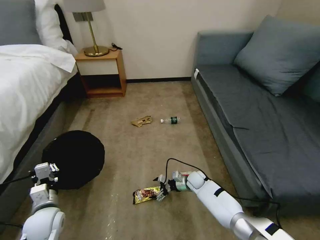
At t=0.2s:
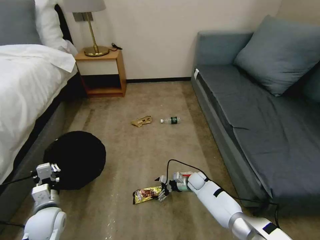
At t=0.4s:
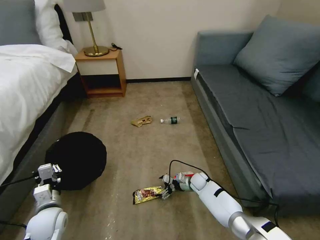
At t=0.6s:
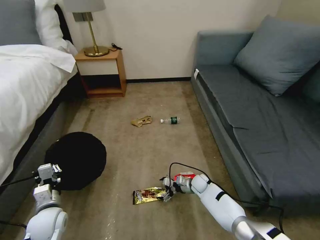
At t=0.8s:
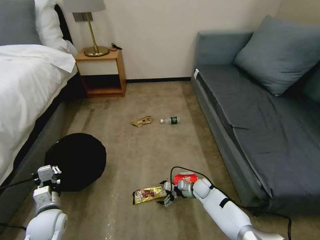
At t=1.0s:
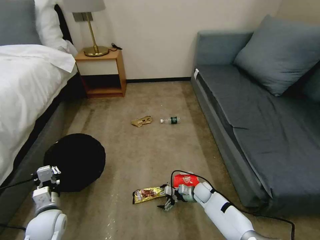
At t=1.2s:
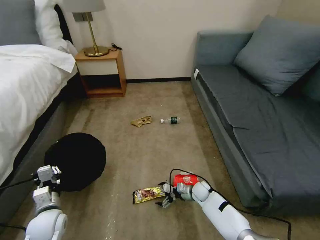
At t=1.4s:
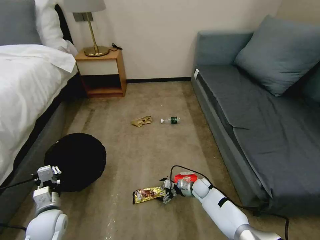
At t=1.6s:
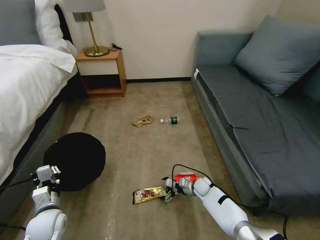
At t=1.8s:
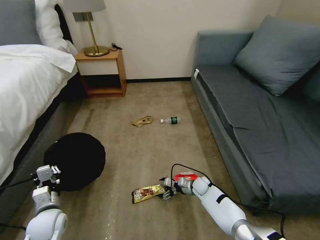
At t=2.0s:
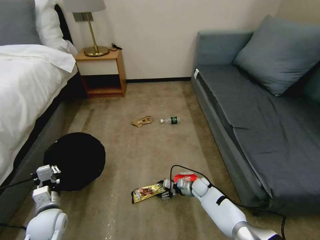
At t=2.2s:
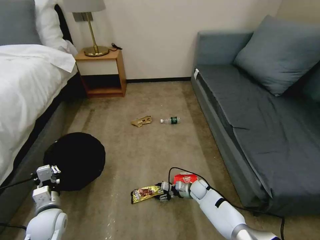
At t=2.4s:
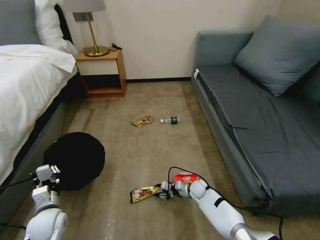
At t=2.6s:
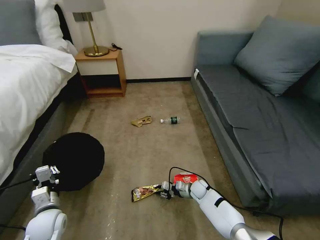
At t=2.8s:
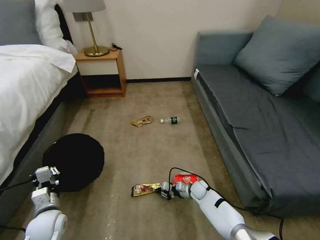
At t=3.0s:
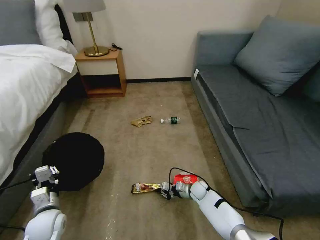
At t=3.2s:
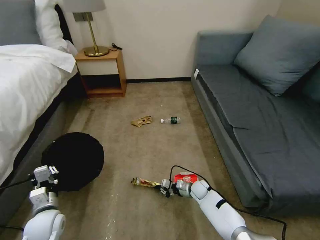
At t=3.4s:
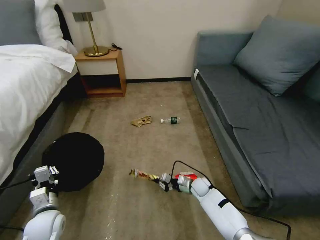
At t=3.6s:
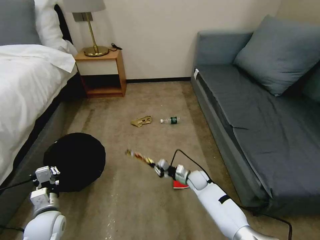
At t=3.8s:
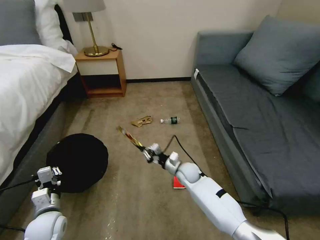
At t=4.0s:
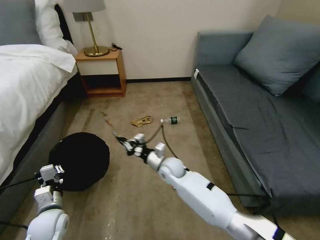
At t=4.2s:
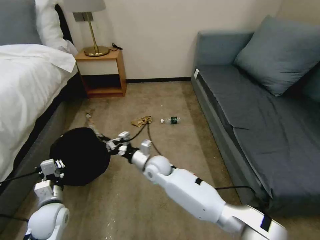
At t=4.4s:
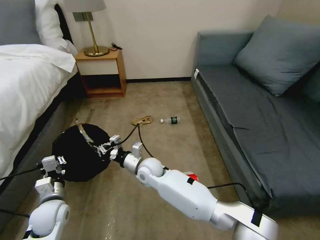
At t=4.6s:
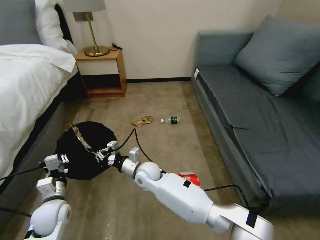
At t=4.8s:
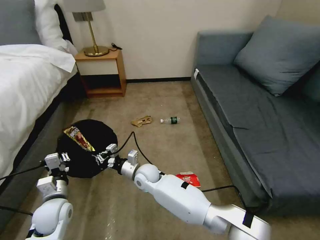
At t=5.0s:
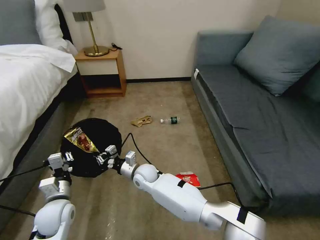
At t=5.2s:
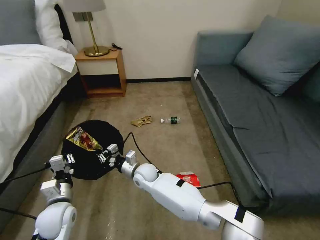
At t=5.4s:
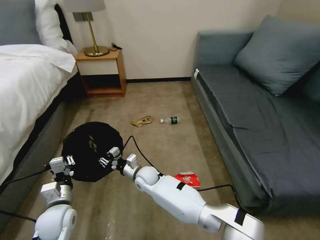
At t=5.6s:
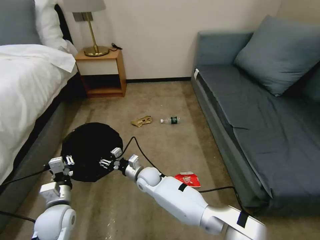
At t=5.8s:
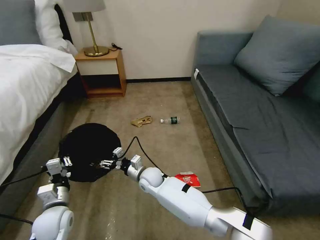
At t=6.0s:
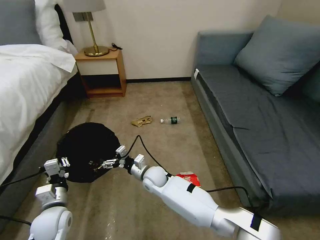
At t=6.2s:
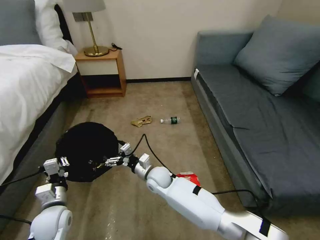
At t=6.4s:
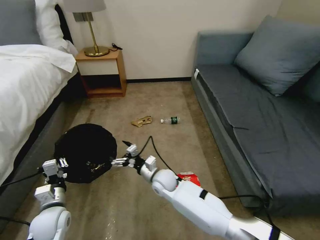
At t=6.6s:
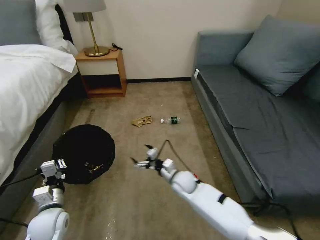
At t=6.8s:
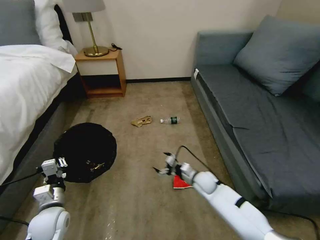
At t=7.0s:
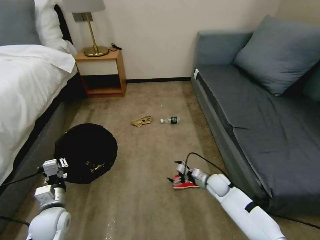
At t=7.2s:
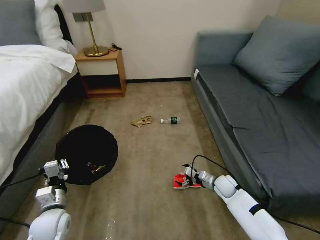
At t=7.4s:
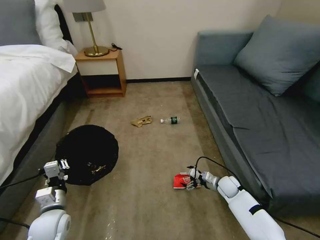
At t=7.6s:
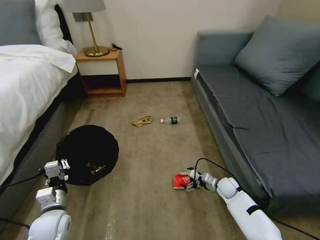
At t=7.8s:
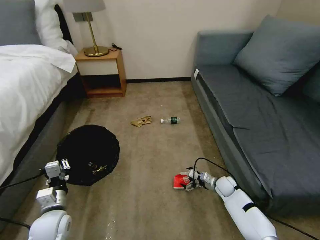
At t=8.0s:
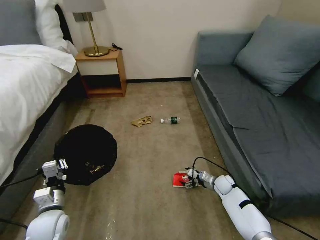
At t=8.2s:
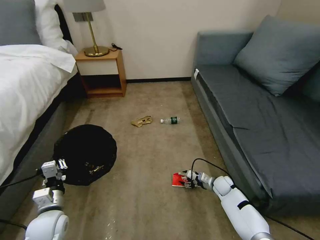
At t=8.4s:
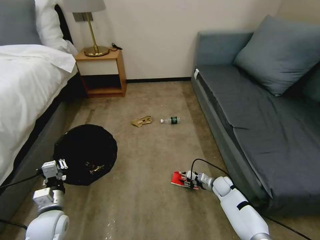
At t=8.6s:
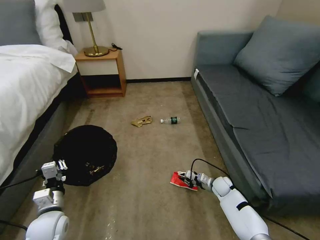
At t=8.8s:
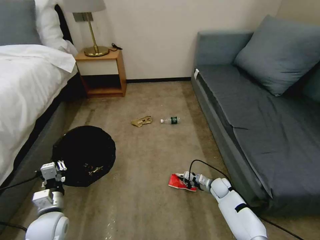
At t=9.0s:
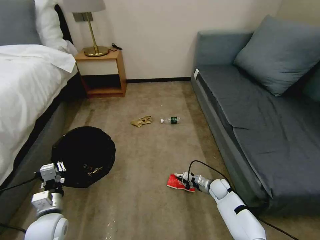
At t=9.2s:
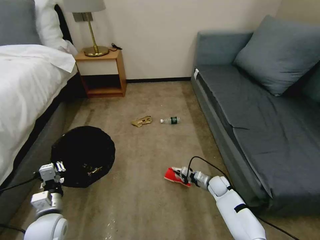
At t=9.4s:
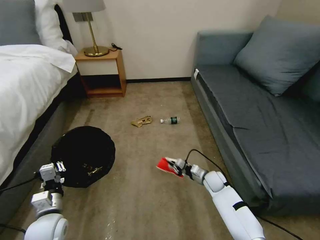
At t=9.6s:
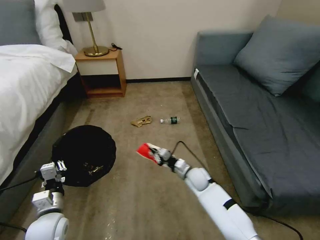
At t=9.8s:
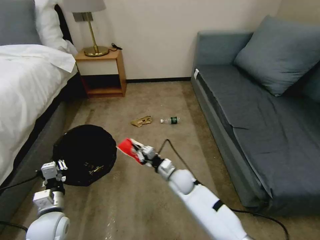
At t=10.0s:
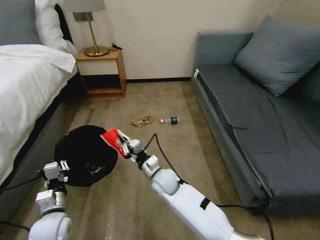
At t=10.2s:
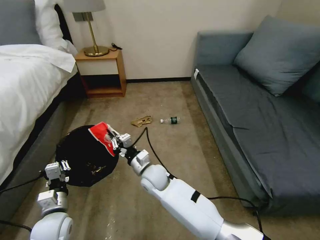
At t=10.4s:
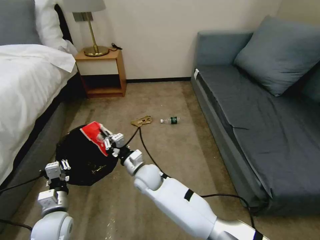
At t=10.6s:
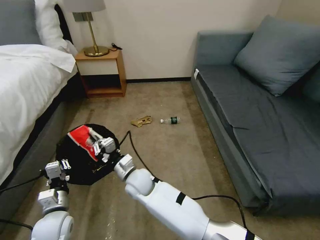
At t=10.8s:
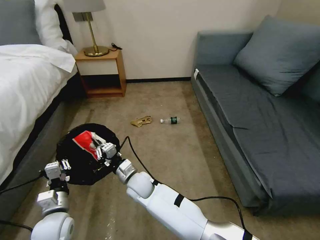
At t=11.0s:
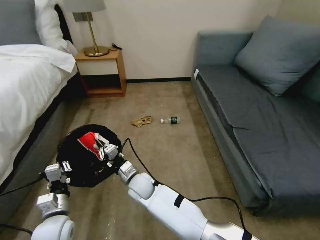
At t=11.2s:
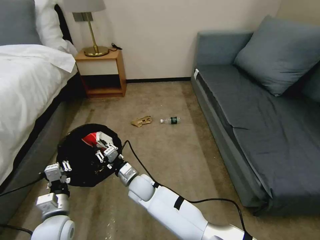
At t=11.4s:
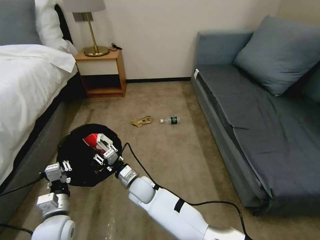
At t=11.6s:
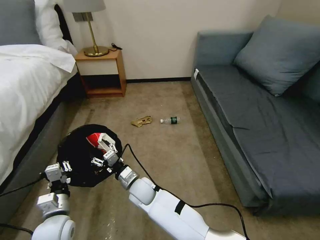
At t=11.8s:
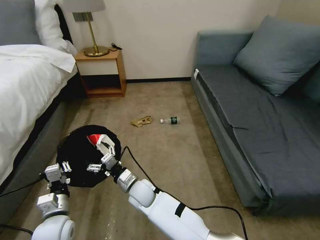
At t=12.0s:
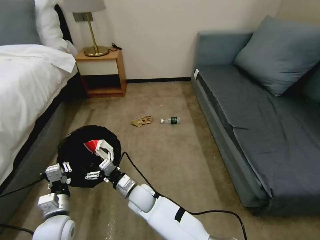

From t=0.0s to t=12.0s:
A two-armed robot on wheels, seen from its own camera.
Task of the whole recording: Pick up the trash bin, then pick up the garbage on the floor and place it into the trash bin.
From t=0.0s to t=1.6s: The grippers stay close to where they were, moving slightly.
From t=1.6s to t=3.0s: The right gripper closes.
From t=3.0s to t=4.4s: The right gripper shifts roughly 30 cm to the left and upward.
From t=4.4s to t=6.0s: The right gripper heads downward, covering some 5 cm, and opens up.
From t=6.0s to t=7.6s: The right gripper travels to the right by approximately 35 cm.
From t=7.6s to t=9.0s: The right gripper closes up.
From t=9.0s to t=10.4s: The right gripper travels to the left and upward by approximately 40 cm.
From t=10.4s to t=12.0s: The right gripper heads downward and backward, covering some 10 cm, and opens its fingers.

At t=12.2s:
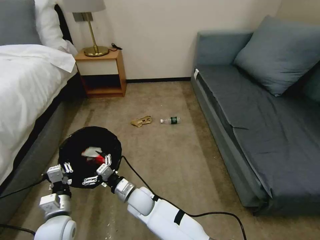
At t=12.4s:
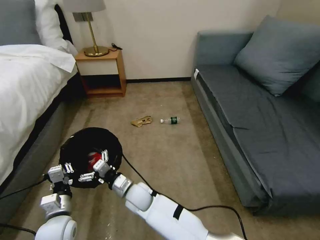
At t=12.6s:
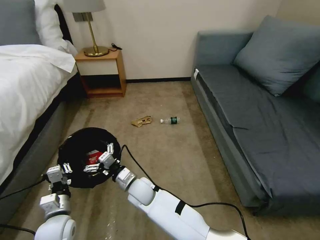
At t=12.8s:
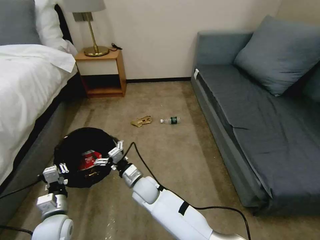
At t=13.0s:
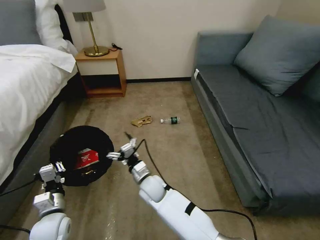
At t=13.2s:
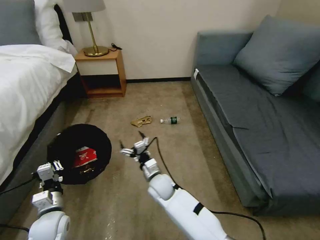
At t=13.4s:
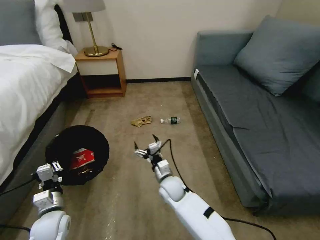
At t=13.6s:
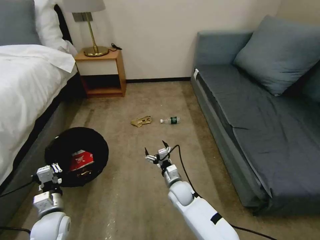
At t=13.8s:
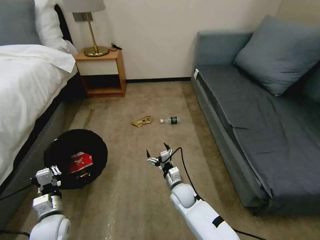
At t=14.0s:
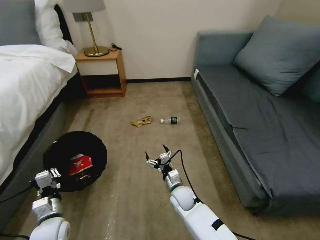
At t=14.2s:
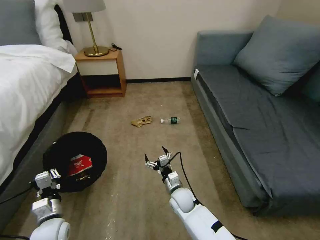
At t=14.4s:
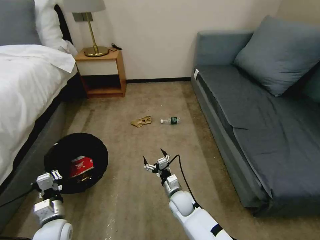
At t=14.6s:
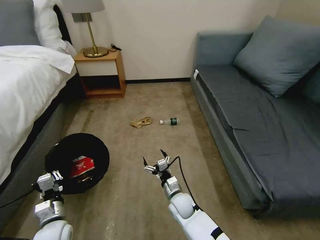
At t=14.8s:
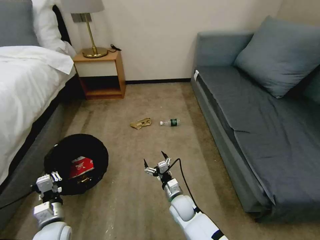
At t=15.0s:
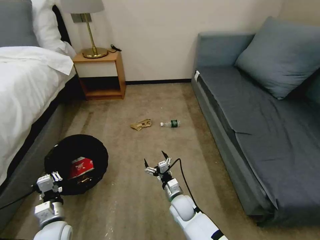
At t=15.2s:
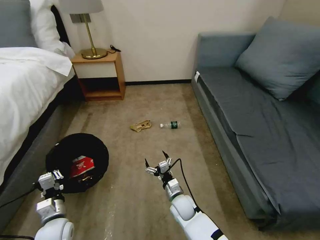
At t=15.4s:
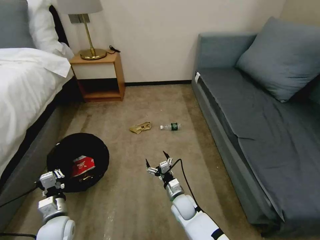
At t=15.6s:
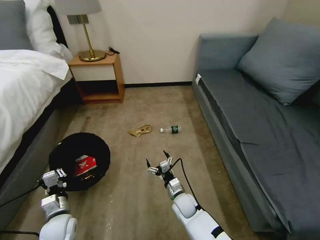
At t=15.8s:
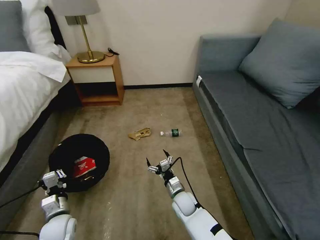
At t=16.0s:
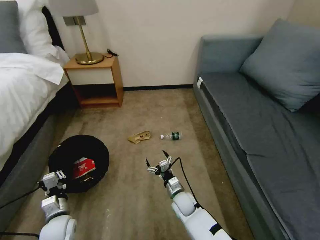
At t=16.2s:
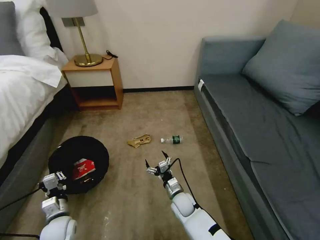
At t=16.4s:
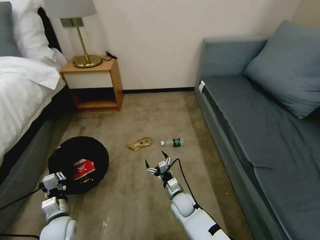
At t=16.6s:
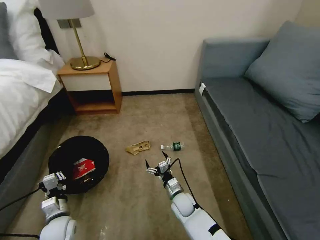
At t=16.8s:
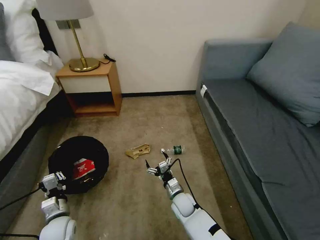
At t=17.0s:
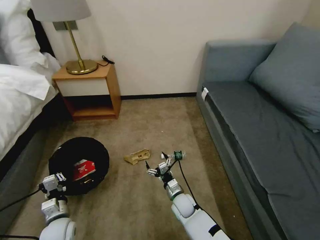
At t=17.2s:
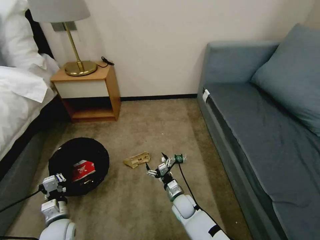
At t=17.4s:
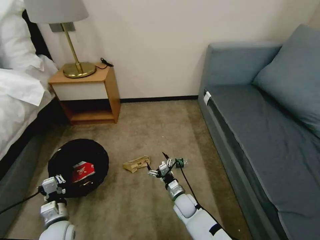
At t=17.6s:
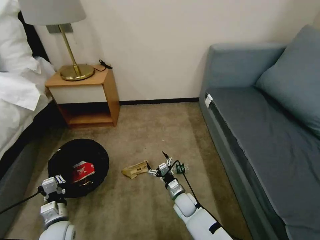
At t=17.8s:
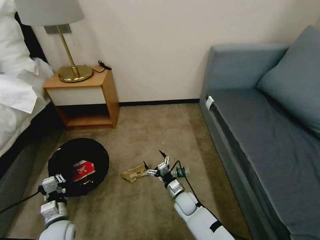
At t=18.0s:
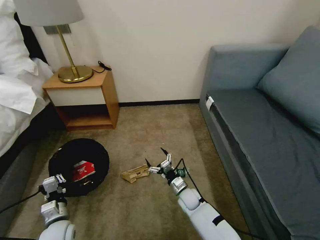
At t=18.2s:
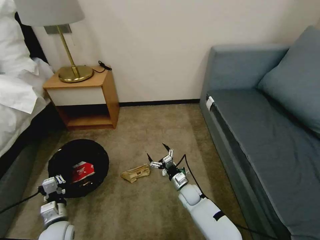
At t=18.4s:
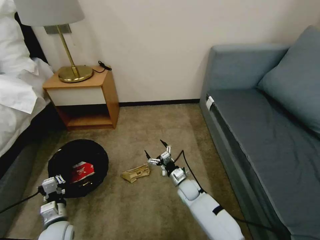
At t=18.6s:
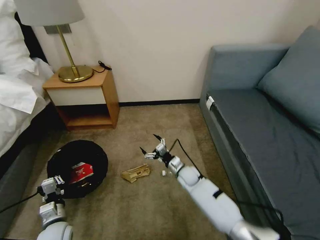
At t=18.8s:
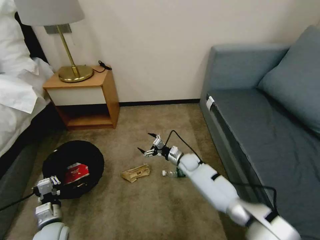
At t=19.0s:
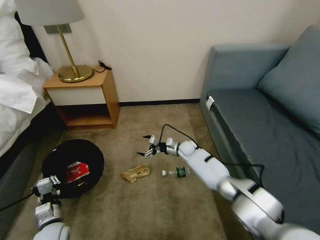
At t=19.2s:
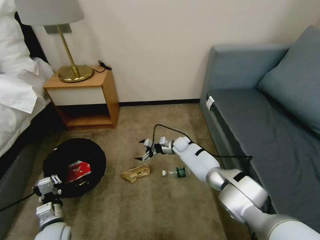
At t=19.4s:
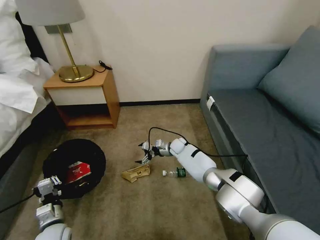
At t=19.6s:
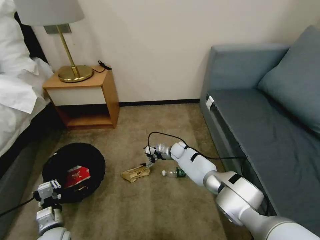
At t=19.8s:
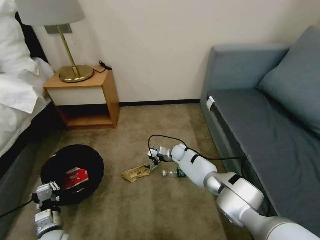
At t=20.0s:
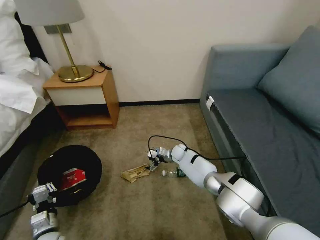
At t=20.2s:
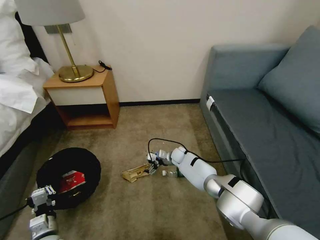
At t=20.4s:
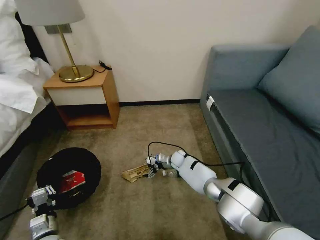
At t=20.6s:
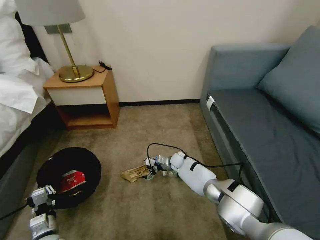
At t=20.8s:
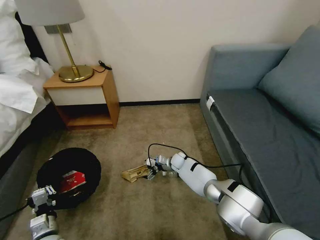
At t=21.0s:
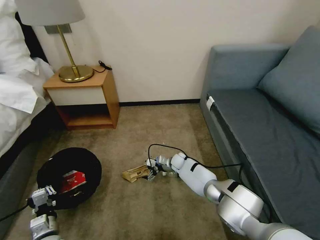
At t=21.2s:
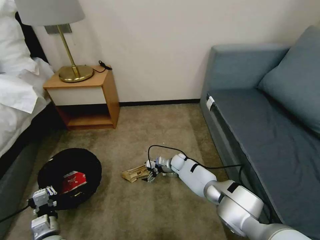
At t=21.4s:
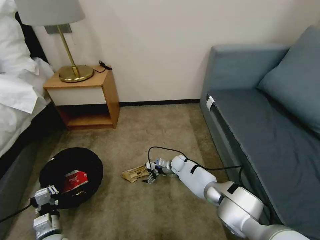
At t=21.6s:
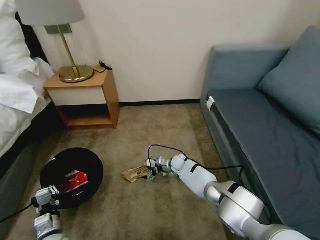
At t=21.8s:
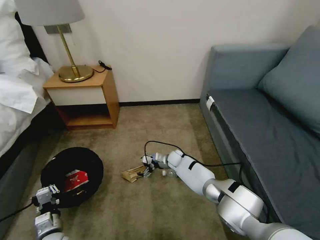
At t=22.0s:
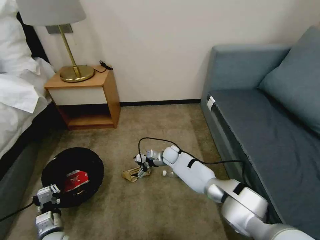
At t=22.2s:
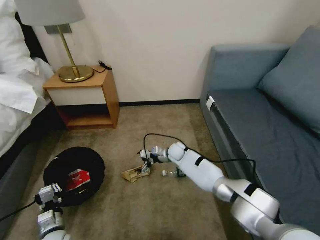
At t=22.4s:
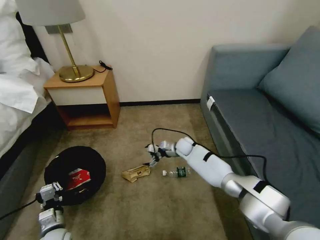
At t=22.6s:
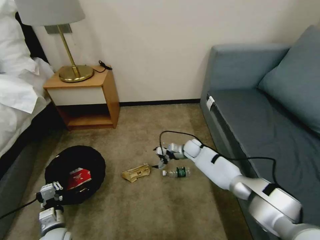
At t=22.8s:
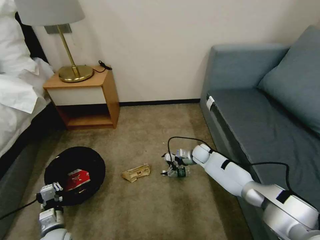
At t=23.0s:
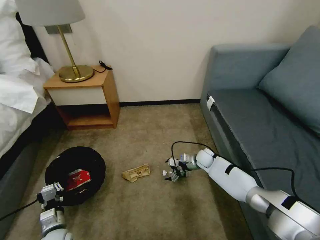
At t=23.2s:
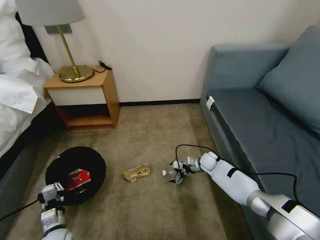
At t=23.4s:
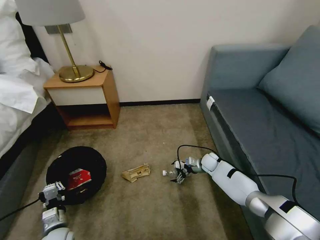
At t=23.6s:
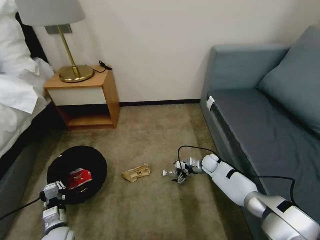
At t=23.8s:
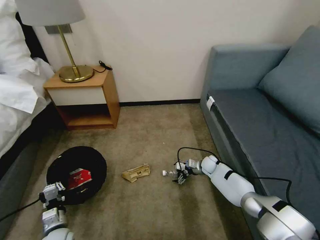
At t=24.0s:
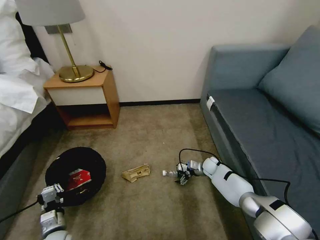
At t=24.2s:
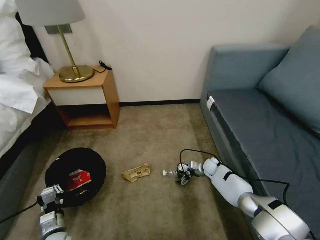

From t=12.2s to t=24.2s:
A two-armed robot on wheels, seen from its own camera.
Task of the whole recording: Pick up the trash bin, then pick up the garbage on the floor and place it into the trash bin.
From t=12.2s to t=13.8s: The right gripper travels to the right by some 15 cm.
From t=13.8s to t=15.2s: There are only small adjustments of the grippers.
From t=16.6s to t=18.2s: The right gripper ends up roughly 5 cm from where it was.
From t=18.2s to t=19.8s: The right gripper travels forward by about 20 cm.
From t=19.8s to t=21.2s: The right gripper changes place by about 5 cm.
From t=21.2s to t=22.6s: The right gripper is displaced upward and to the right by some 10 cm.
From t=22.6s to t=24.2s: The right gripper heads to the right and downward, covering approximately 15 cm.
